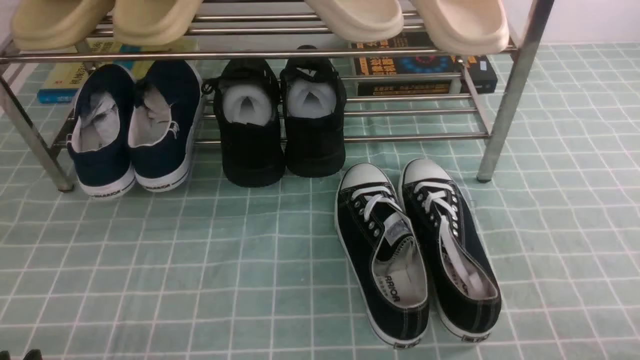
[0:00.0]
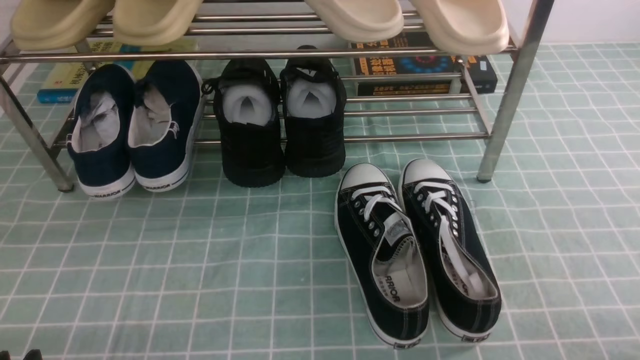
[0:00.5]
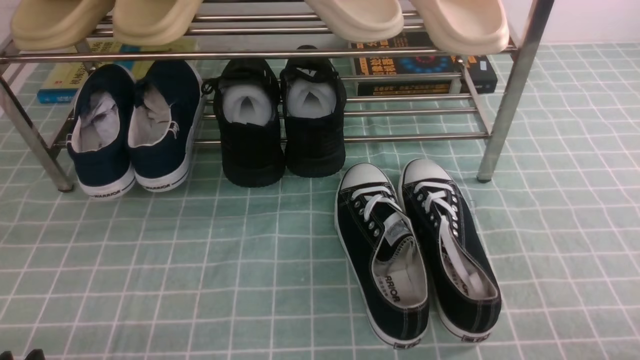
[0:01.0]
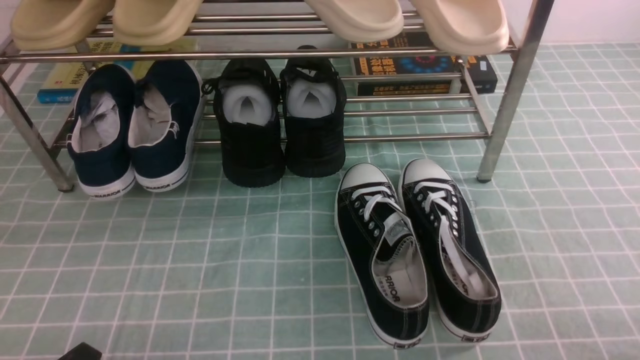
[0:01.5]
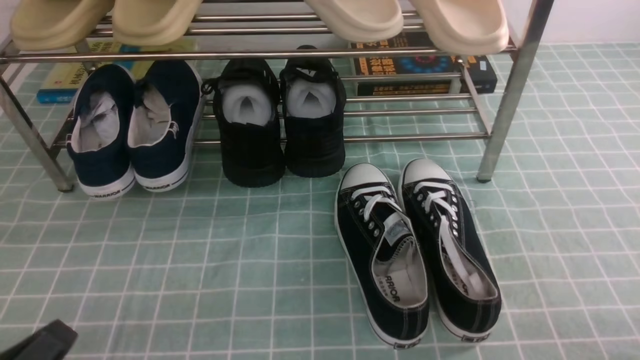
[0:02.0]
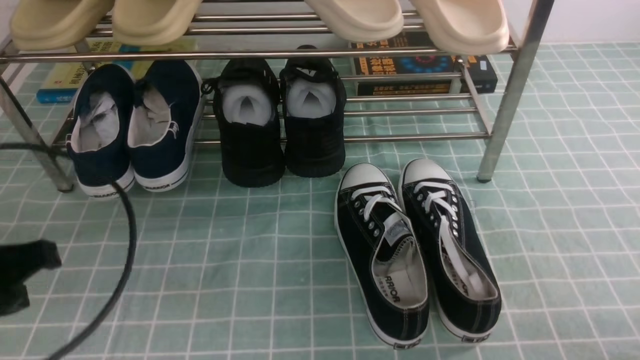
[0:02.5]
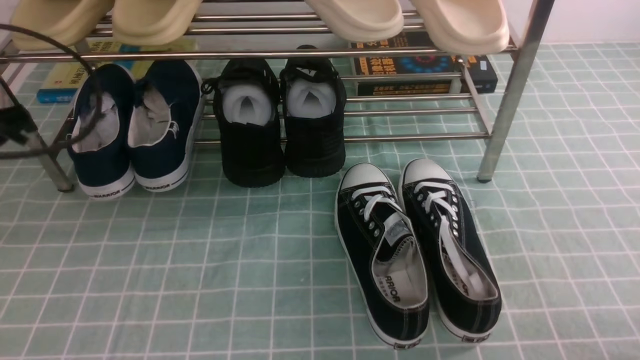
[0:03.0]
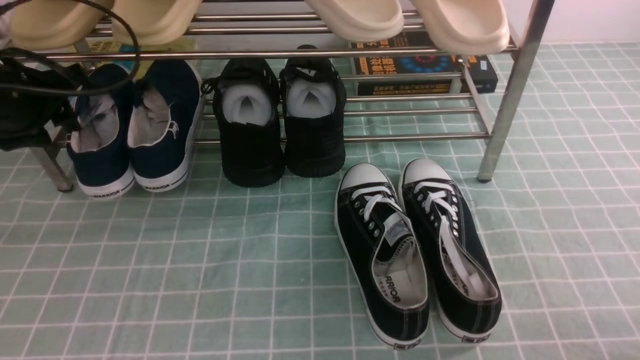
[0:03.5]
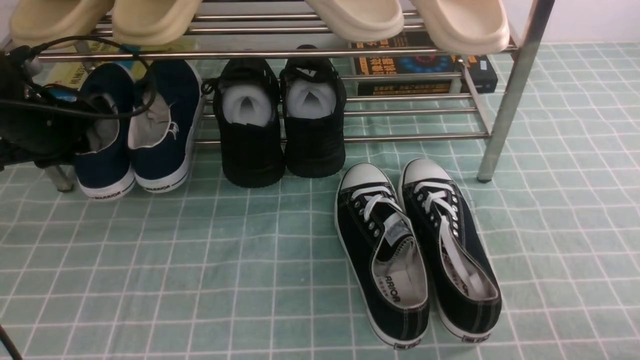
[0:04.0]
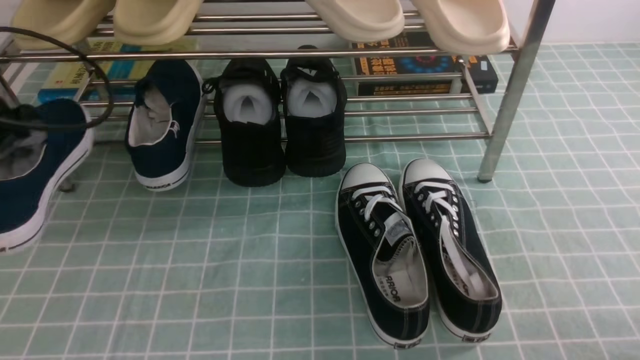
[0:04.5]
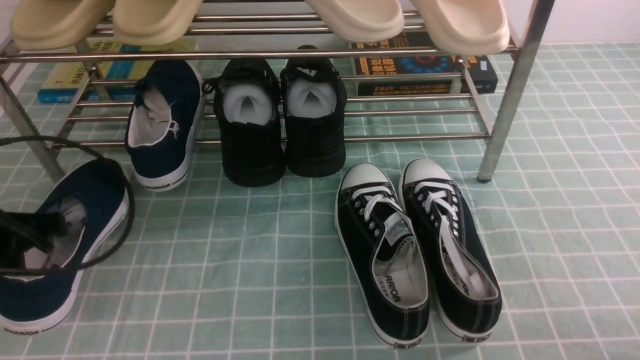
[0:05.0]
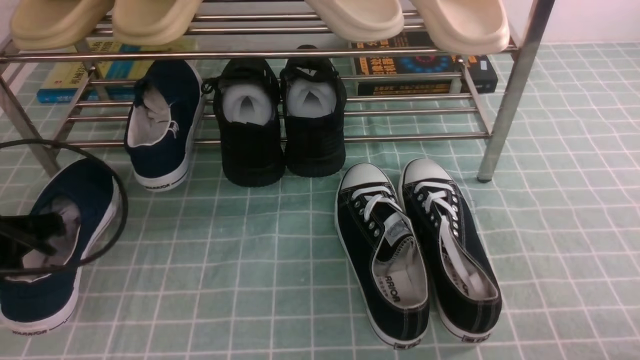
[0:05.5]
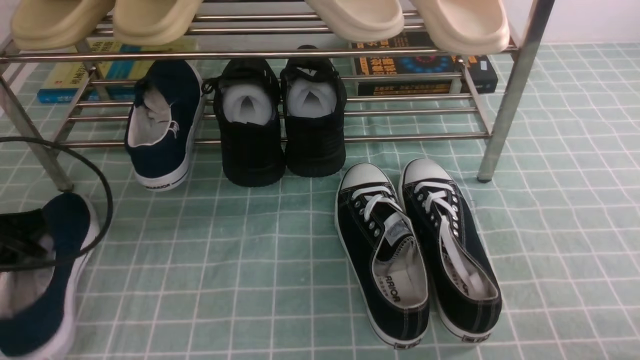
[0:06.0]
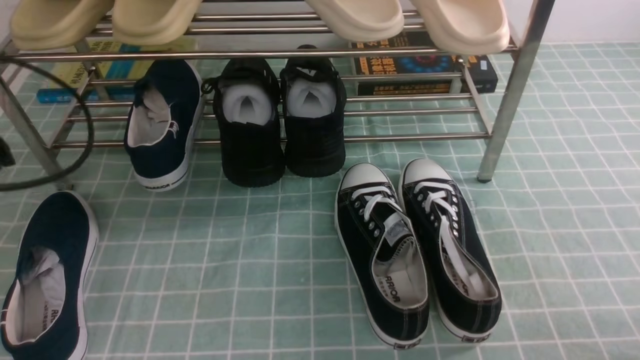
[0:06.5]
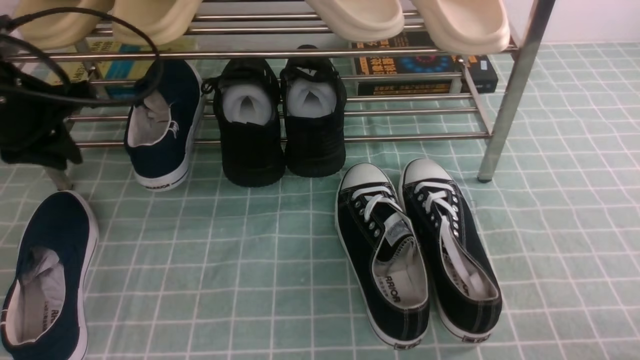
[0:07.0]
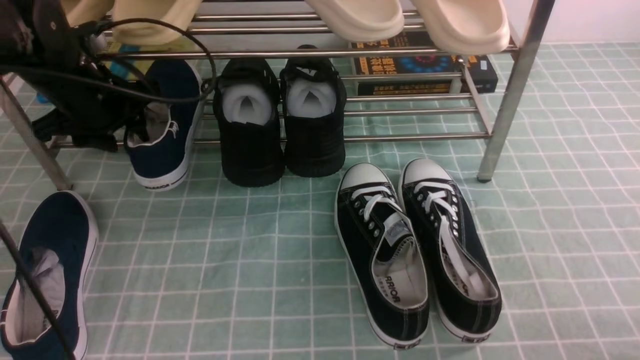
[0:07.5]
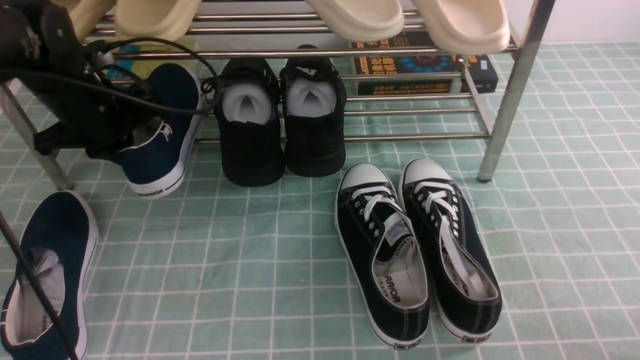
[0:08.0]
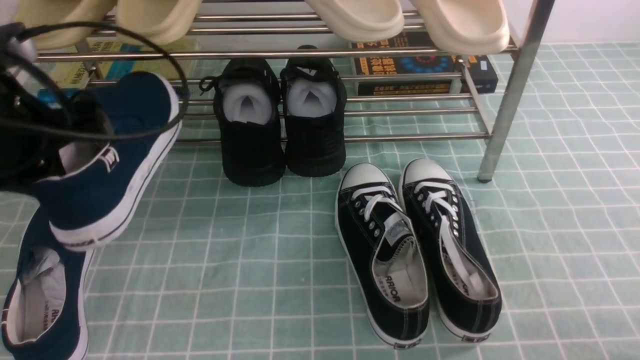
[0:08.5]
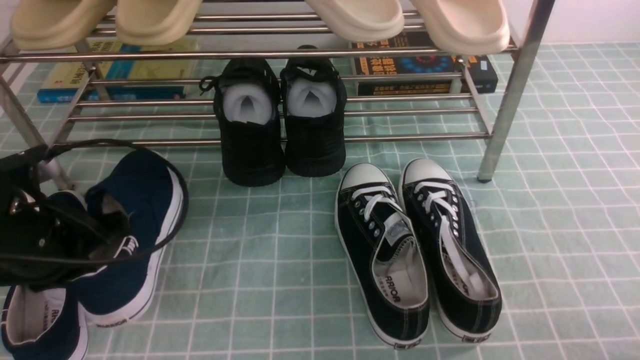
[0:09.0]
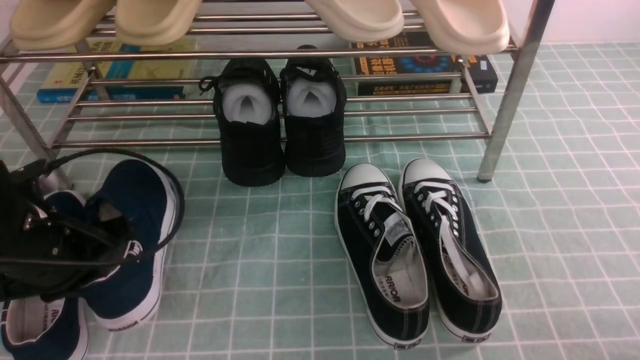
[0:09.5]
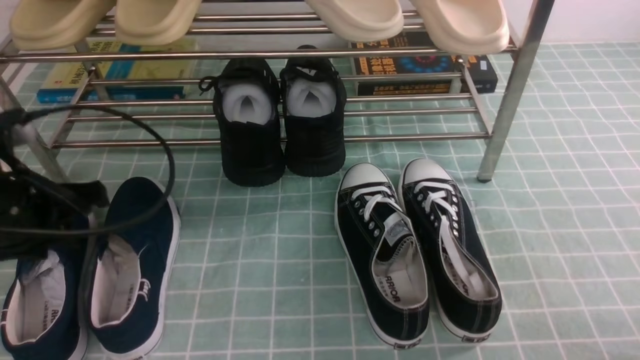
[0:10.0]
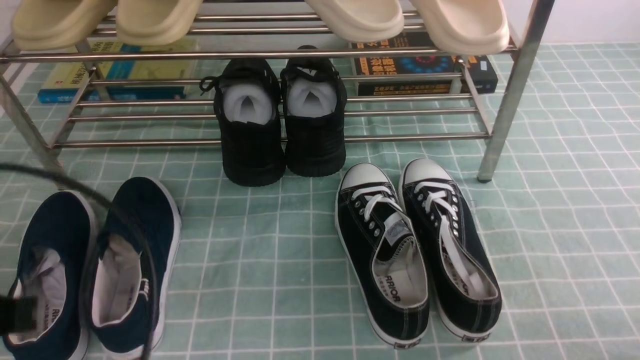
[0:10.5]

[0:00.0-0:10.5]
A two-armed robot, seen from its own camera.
Step, 0:00.0 to 0:04.0: use the left arm to clamp a shoe on the left side of the shoe rack.
Step, 0:04.5 to 0:06.0: Use your left arm to remove the clamped shoe from the shoe rack and put it down.
Step, 0:06.5 to 0:08.0: use the left arm to clamp a shoe on the left side of the shoe rack.
Step, 0:08.5 to 0:09.5: Use your left arm to remove the clamped shoe from the shoe rack and put it down.
0:00.0 to 0:02.0: The left gripper is displaced upward by roughly 5 cm, and closes up.
0:02.0 to 0:04.0: The left gripper shifts some 35 cm forward, and opens, then closes once more.
0:04.0 to 0:06.5: The left gripper moves backward and upward, approximately 15 cm.
0:06.5 to 0:08.5: The left gripper goes some 5 cm to the right, goes forward and returns, roughly 15 cm each way, and opens, then closes again.
0:08.5 to 0:10.5: The left gripper goes roughly 15 cm backward, and opens, then closes again.

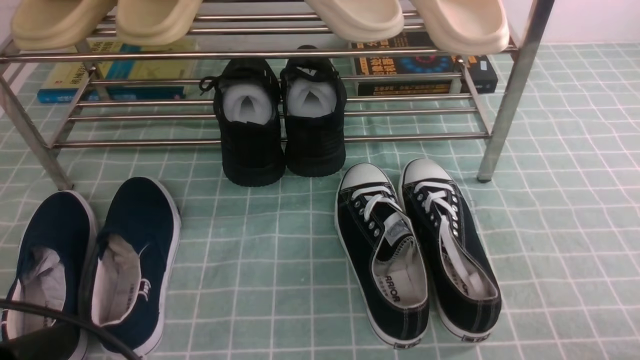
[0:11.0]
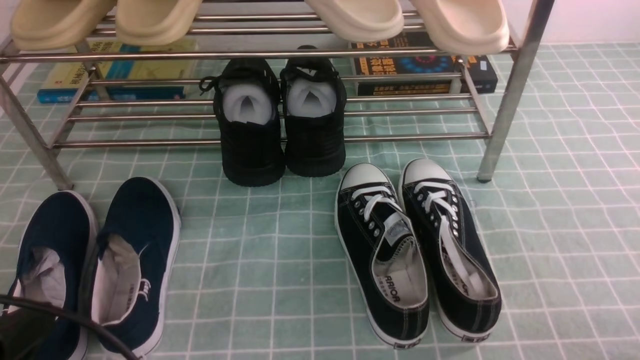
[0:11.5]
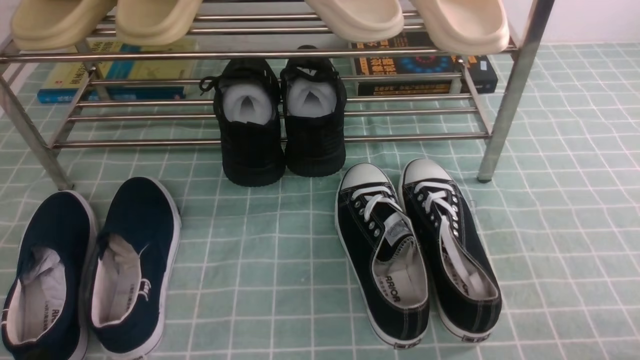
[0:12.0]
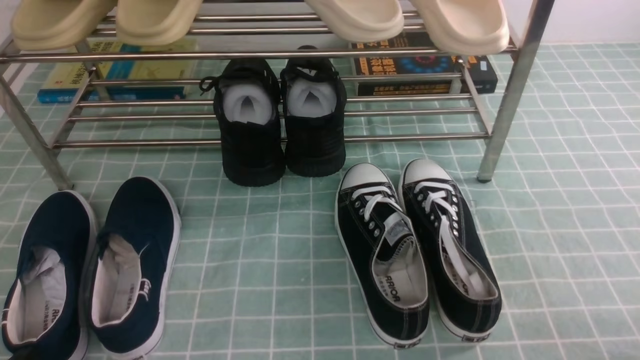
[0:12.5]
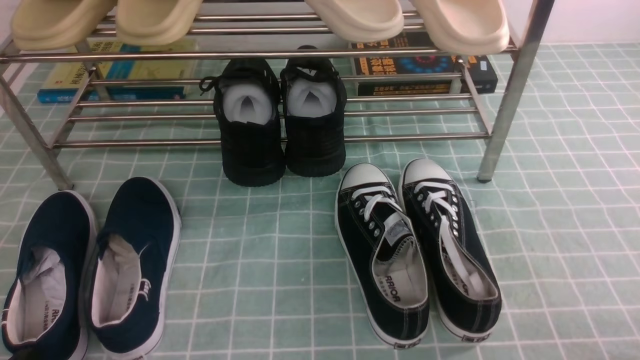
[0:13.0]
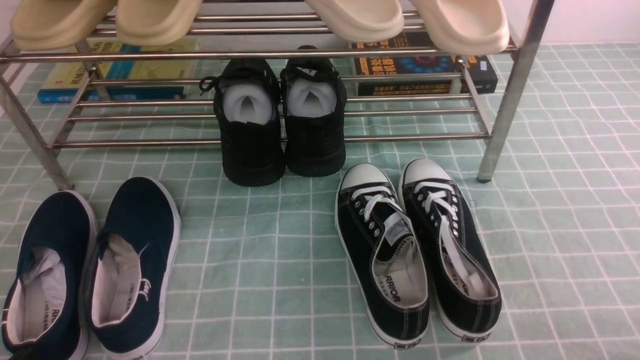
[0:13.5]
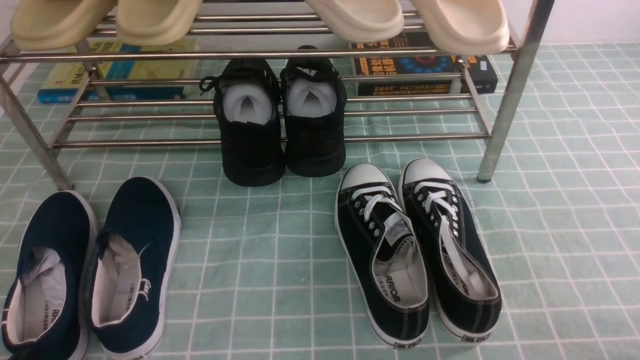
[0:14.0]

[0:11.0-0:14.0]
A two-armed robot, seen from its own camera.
0:11.0 to 0:12.5: The left gripper shifts roughly 10 cm downward.
0:12.5 to 0:14.0: Both grippers stay put.
